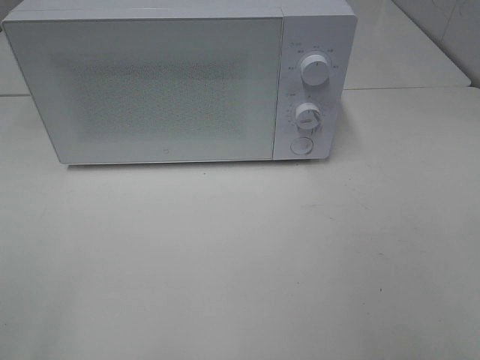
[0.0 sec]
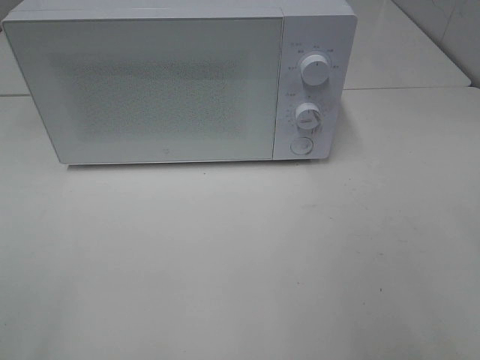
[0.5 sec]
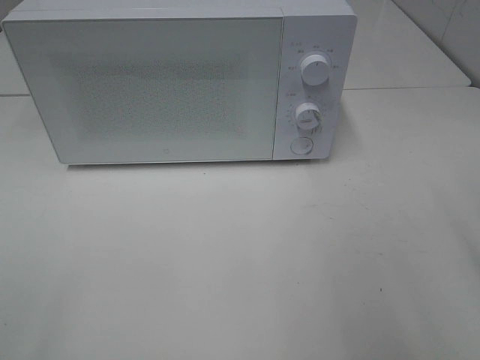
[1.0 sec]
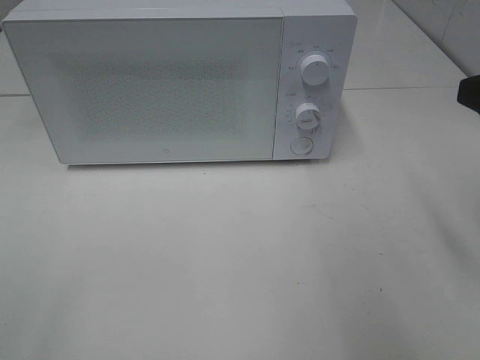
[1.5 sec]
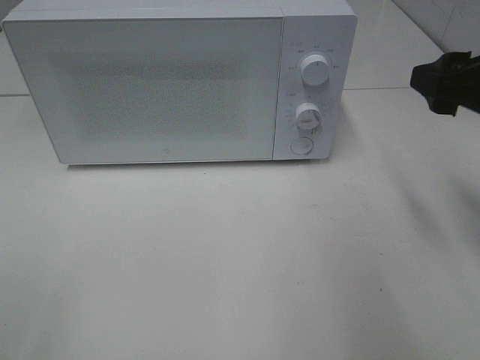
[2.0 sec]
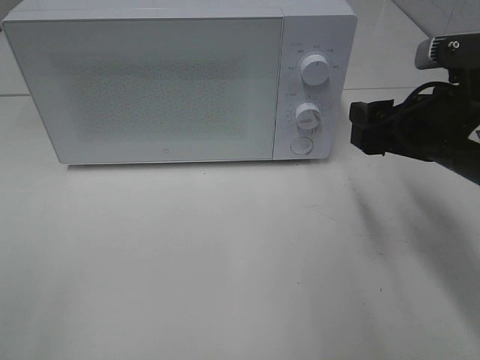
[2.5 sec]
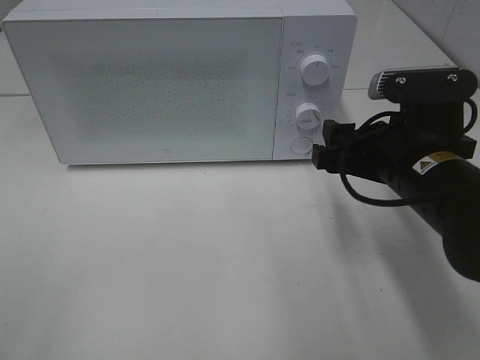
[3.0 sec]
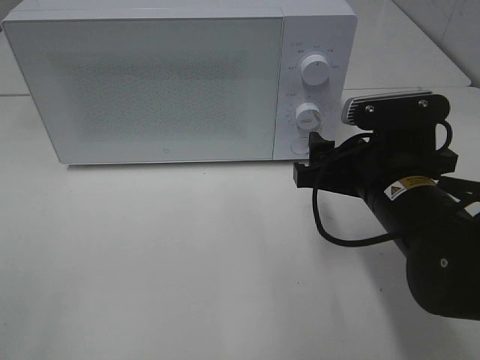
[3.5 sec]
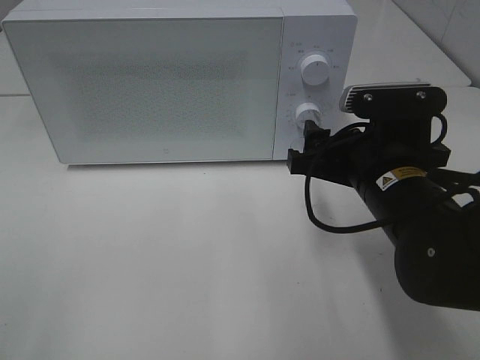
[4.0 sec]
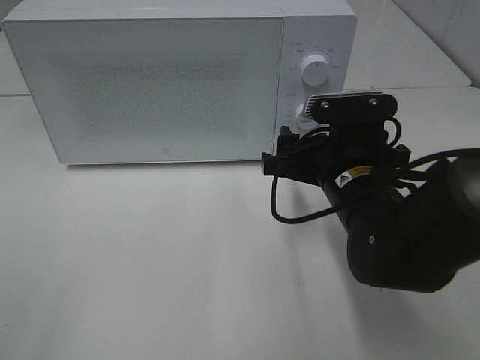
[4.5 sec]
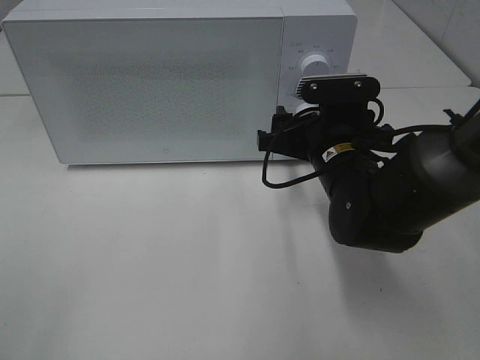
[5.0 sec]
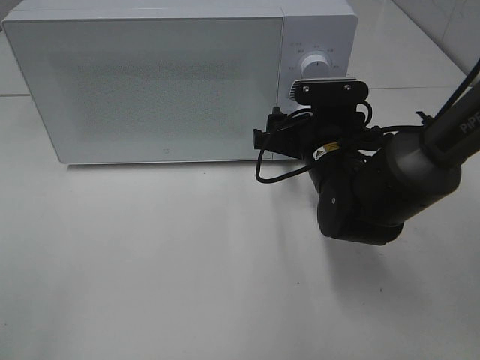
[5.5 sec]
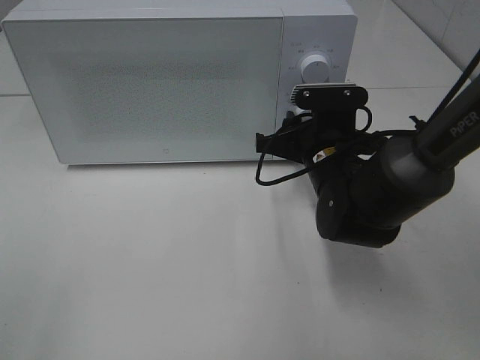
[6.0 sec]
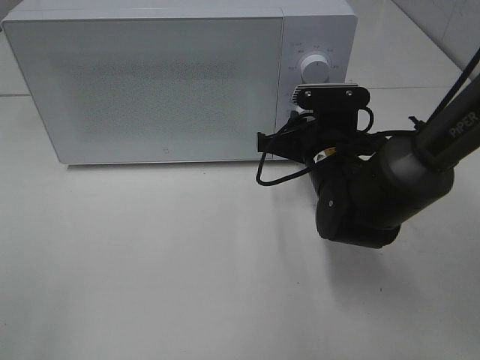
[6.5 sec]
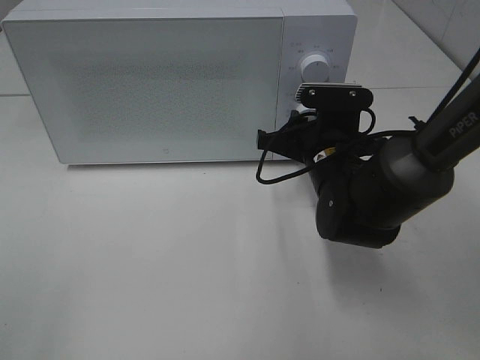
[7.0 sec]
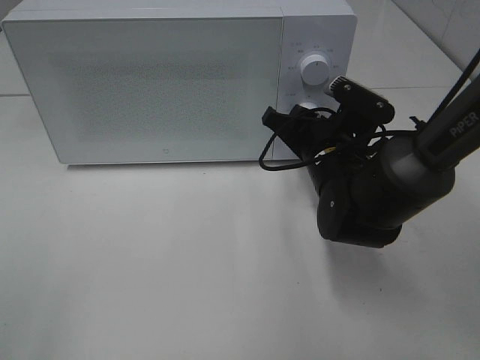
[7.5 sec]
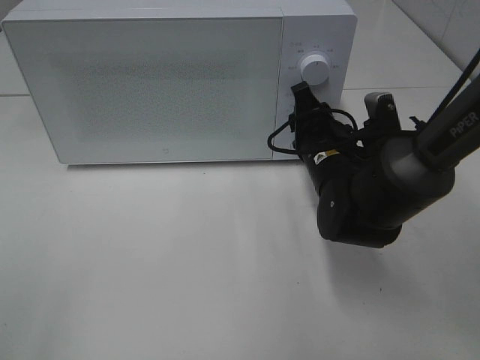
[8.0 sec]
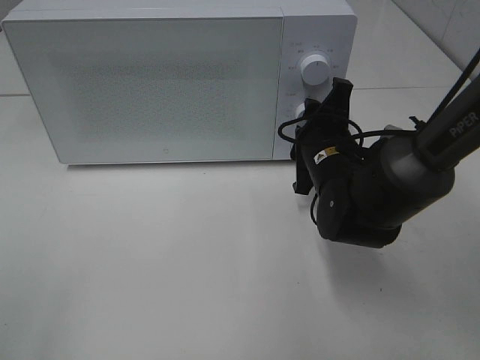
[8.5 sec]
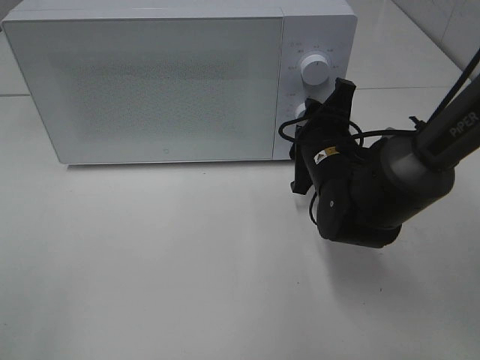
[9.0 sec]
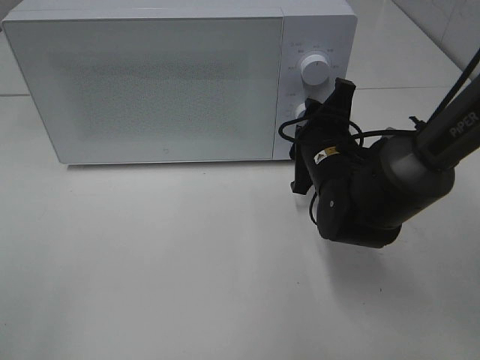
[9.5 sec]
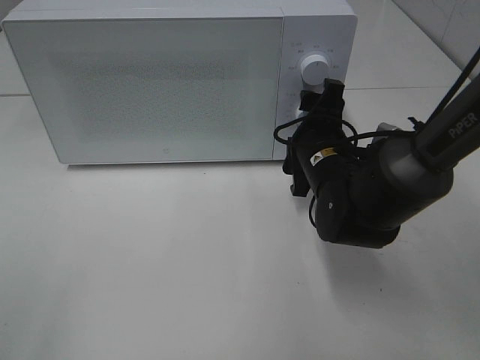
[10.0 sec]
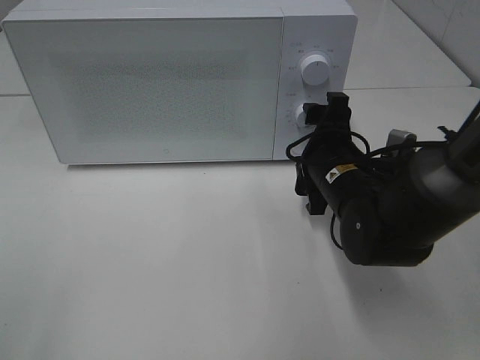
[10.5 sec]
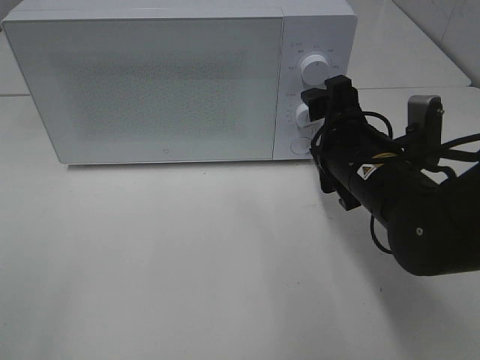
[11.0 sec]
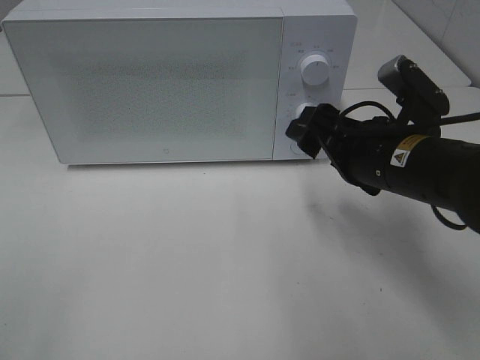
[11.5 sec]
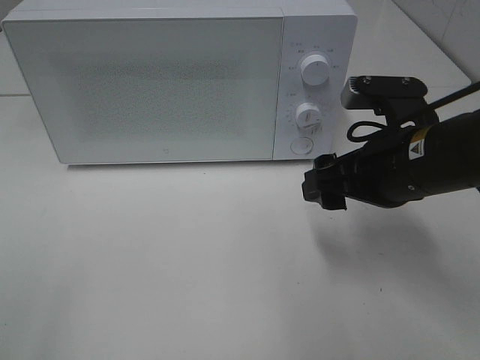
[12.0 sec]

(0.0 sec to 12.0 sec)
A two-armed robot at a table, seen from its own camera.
Task of the whole recording: Heat Sandwich.
0.0 sec - 2.0 sec: The right gripper moves forward, roughly 25 cm.
2.0 sec - 4.0 sec: The right gripper travels to the left and downward by about 15 cm.
4.0 sec - 6.0 sec: The right gripper travels forward and downward by roughly 10 cm.
10.0 sec - 12.0 sec: The right gripper heads backward and upward, covering about 10 cm.

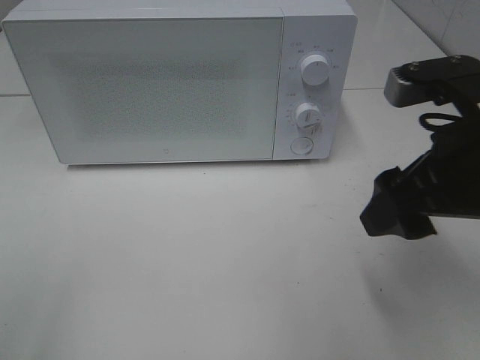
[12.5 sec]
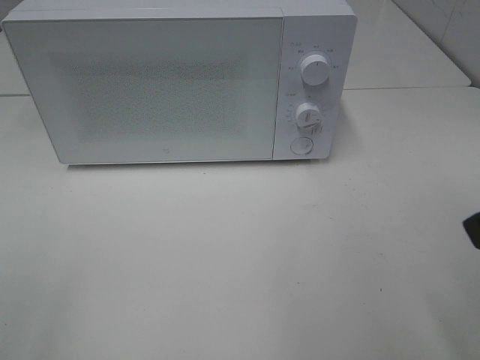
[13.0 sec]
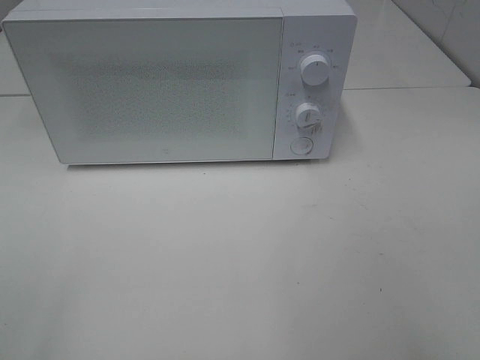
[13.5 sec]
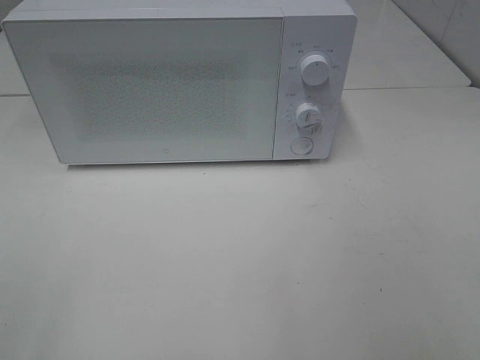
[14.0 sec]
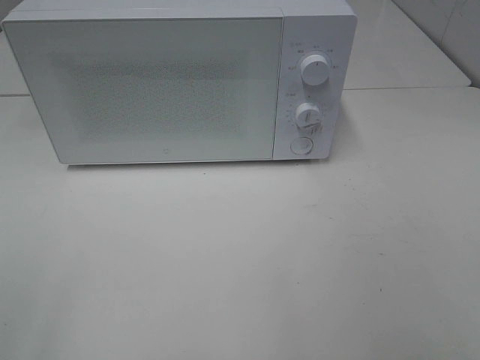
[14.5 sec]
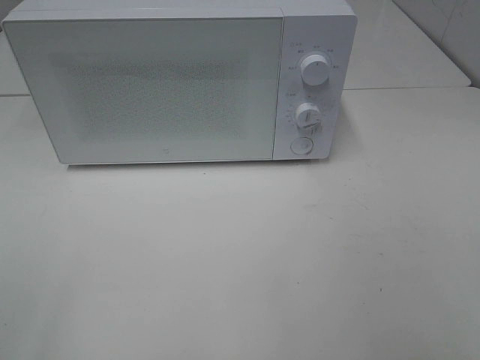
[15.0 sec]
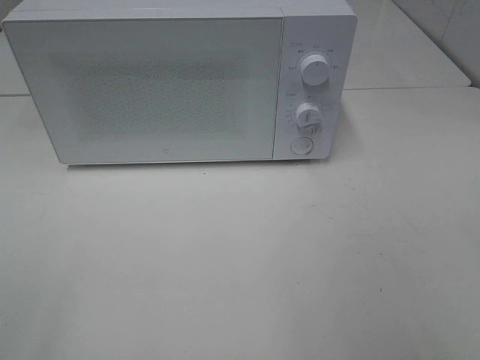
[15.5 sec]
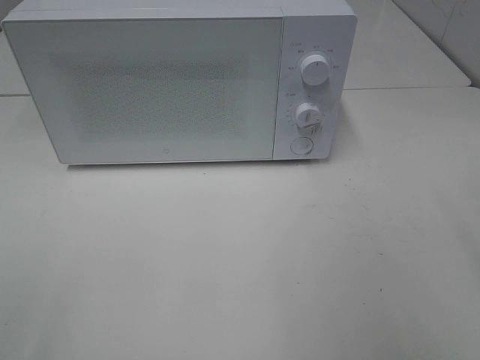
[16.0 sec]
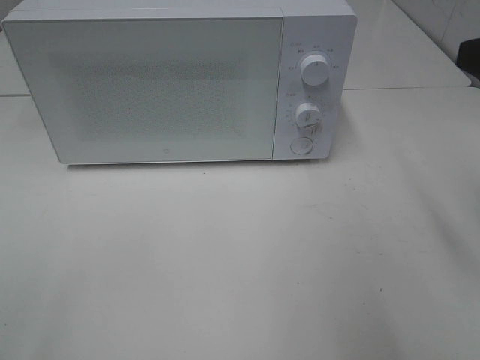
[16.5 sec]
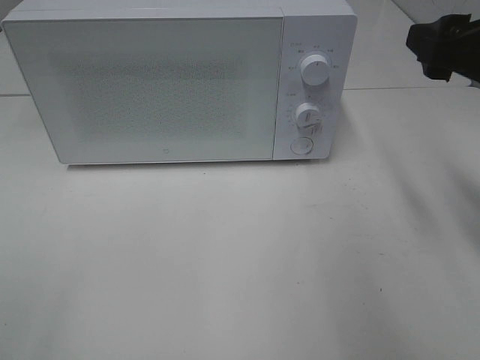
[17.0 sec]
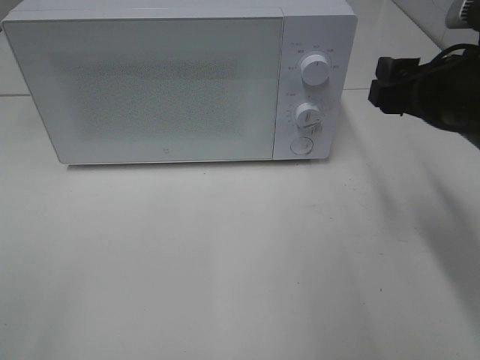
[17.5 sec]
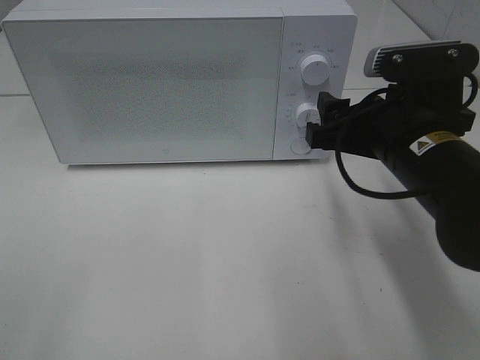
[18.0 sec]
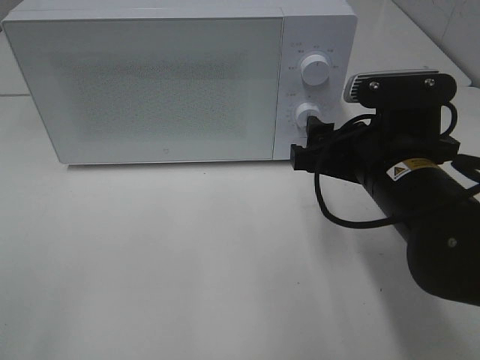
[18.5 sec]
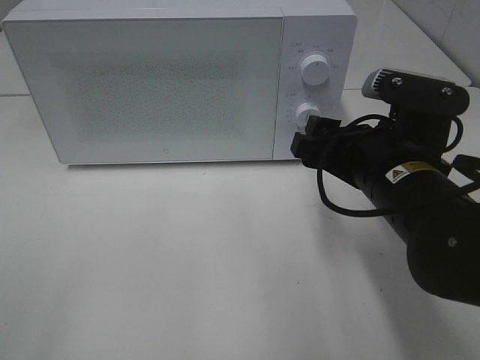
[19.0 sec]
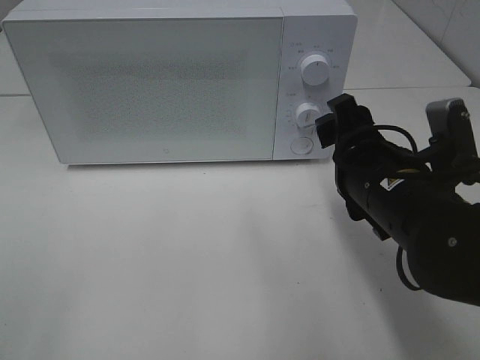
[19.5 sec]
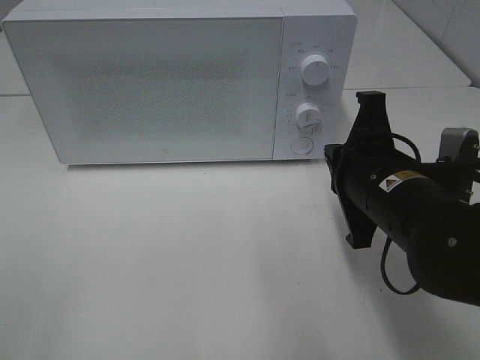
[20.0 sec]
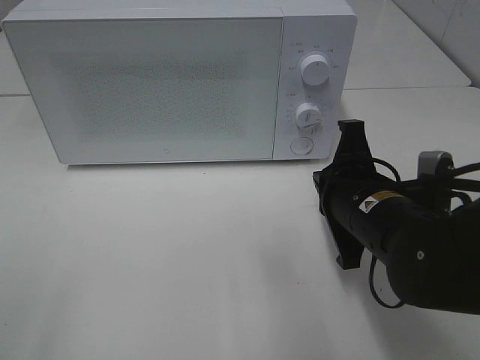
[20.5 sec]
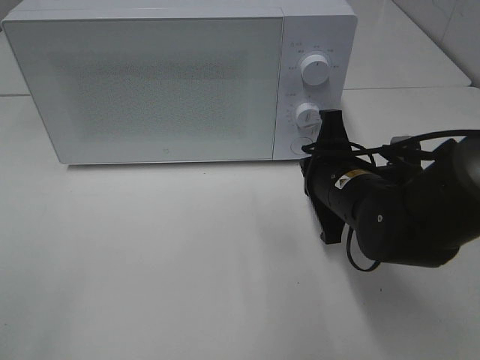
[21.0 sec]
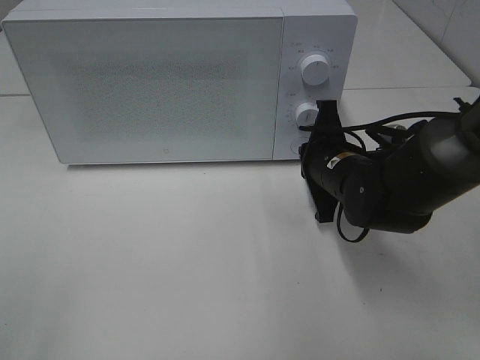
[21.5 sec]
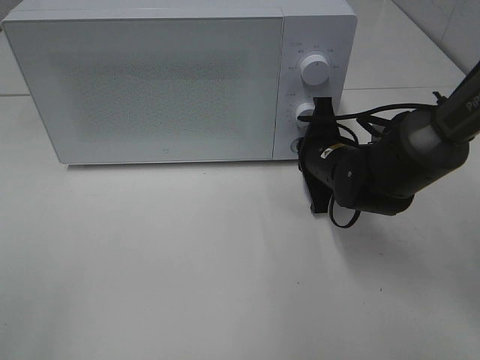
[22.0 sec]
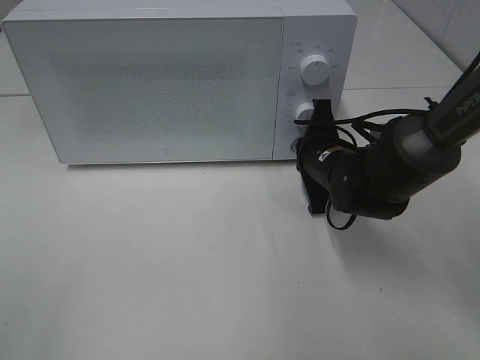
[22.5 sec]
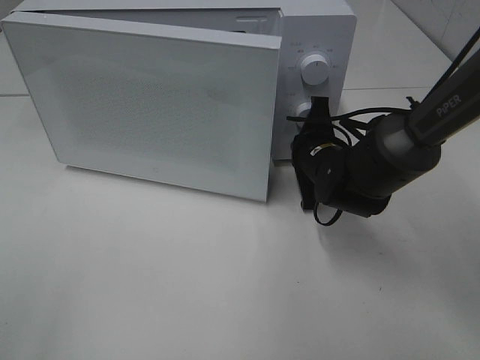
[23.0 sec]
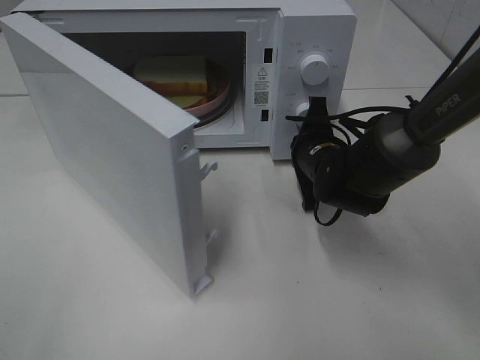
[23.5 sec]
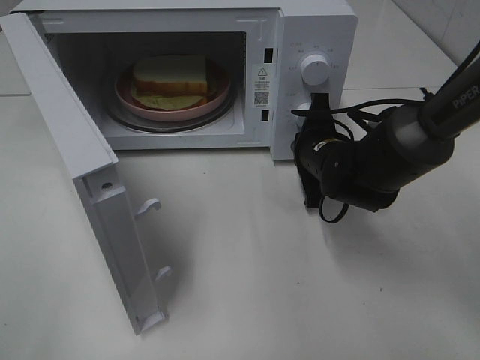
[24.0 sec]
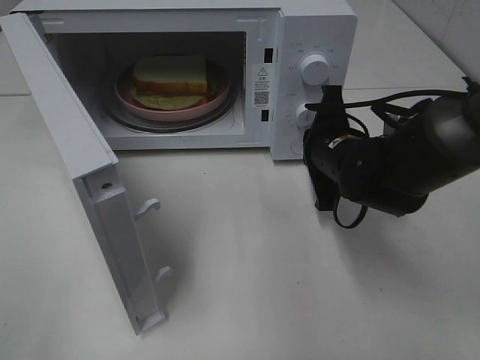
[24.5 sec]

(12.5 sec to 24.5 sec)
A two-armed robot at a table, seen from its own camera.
Task of the whole recording: Heat Sandwich.
12.5 sec - 14.5 sec: The right gripper moves backward and to the right, about 20 cm.
16.5 sec - 18.5 sec: The right gripper heads downward and to the left, covering approximately 15 cm.
18.5 sec - 20.5 sec: The right gripper closes.
20.5 sec - 22.5 sec: The right gripper shifts some 15 cm forward.

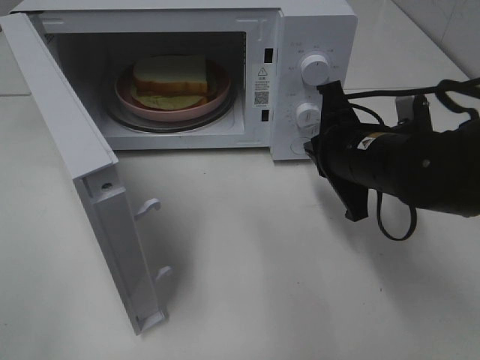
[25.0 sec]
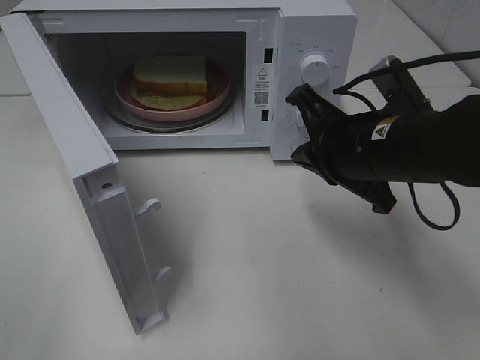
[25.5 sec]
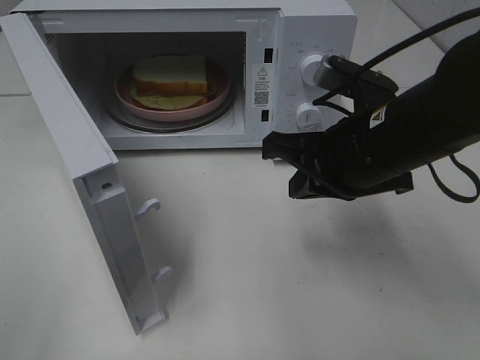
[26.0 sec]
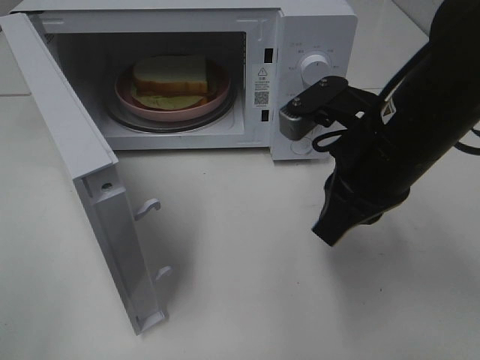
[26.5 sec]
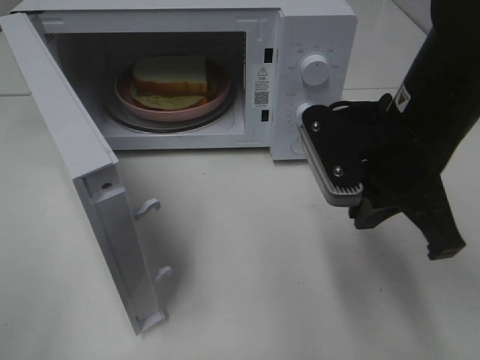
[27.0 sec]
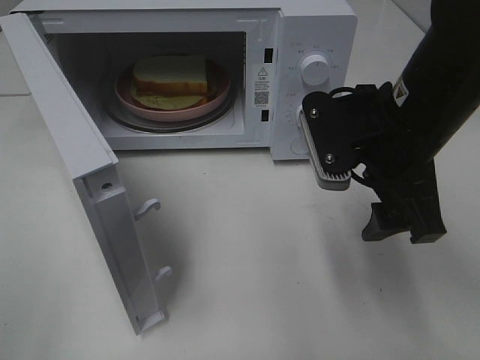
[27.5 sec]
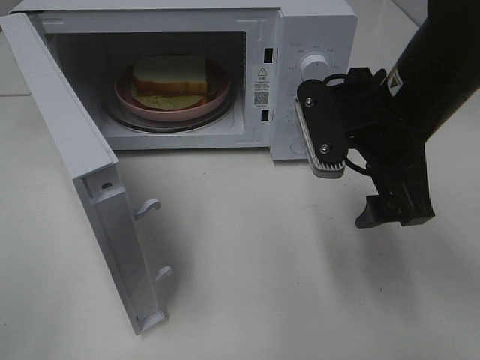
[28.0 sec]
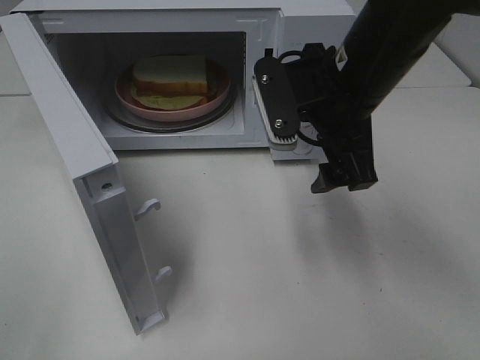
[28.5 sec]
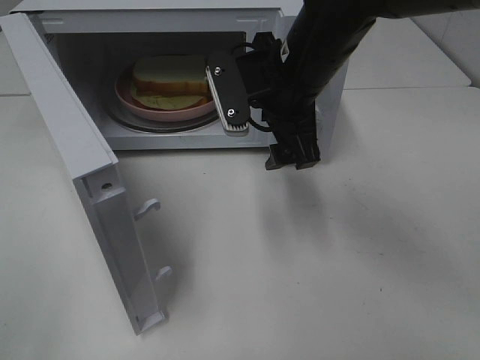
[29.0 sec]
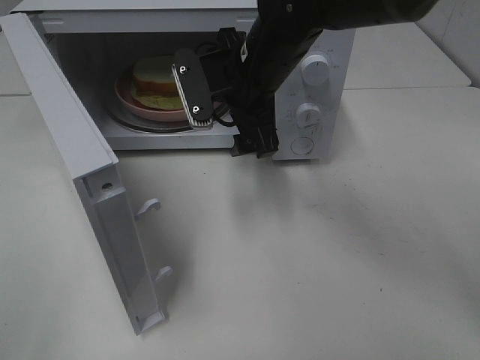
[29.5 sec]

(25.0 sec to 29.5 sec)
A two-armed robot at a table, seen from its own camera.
Task of the whole recording: Heat Sandwich.
25.0 sec - 27.0 sec: The right gripper is displaced upward by about 5 cm.
27.0 sec - 29.5 sec: The right gripper goes about 15 cm forward and to the left, and opens its fingers.
